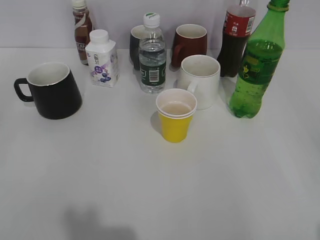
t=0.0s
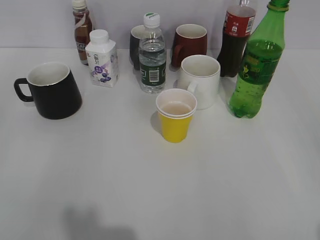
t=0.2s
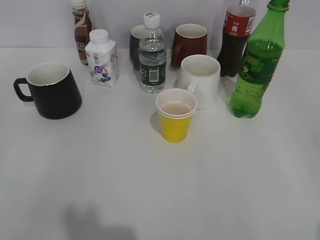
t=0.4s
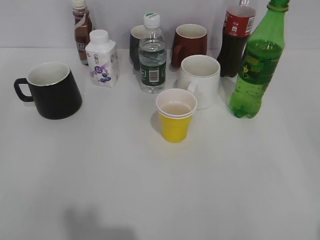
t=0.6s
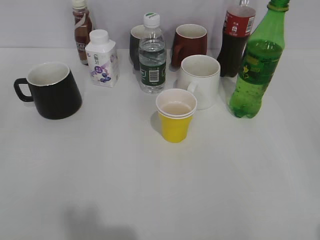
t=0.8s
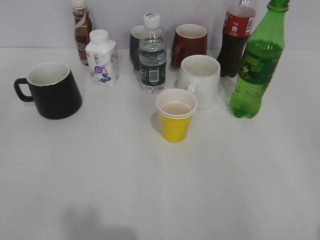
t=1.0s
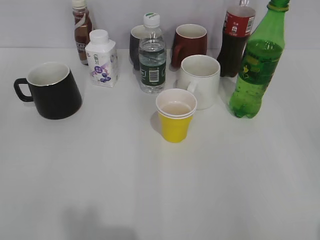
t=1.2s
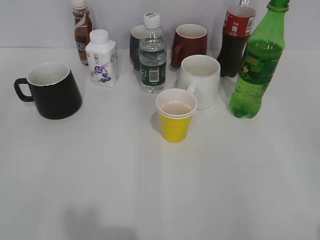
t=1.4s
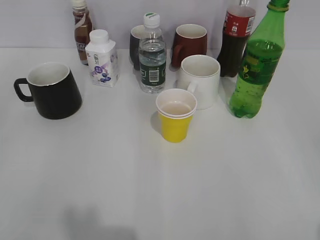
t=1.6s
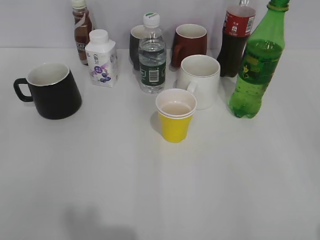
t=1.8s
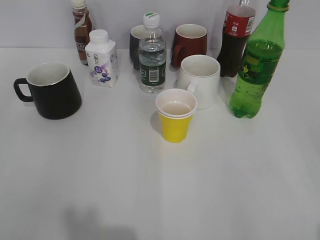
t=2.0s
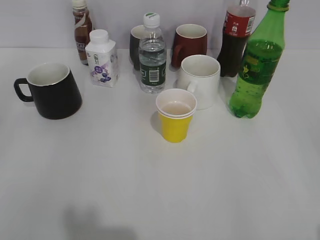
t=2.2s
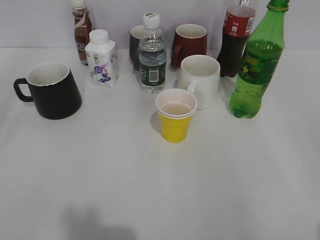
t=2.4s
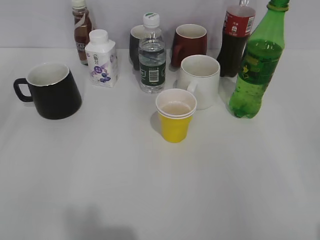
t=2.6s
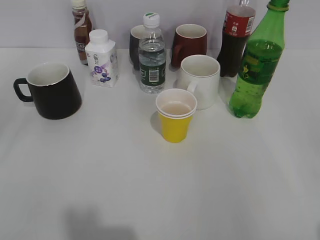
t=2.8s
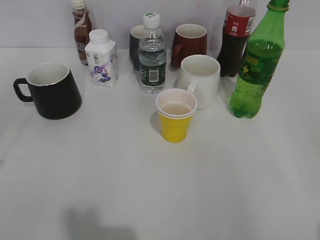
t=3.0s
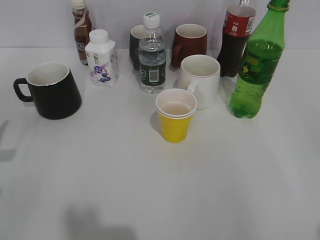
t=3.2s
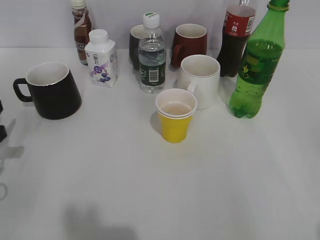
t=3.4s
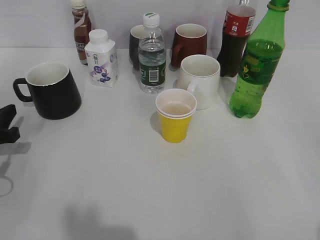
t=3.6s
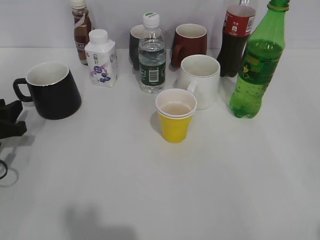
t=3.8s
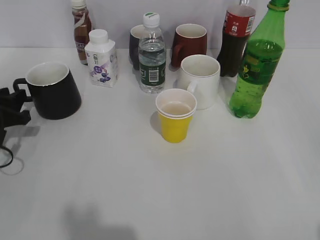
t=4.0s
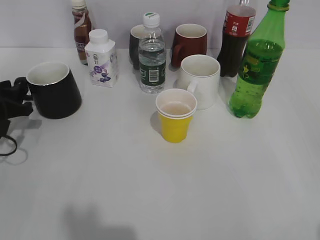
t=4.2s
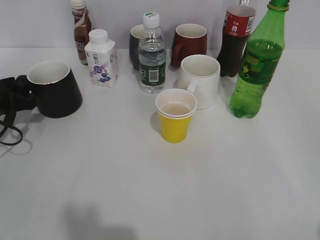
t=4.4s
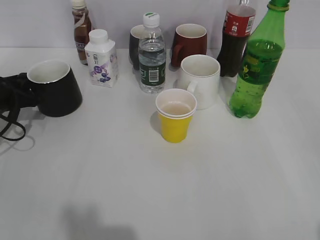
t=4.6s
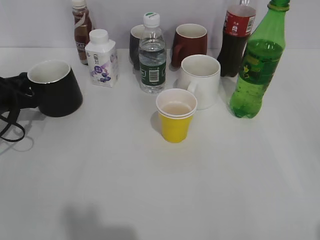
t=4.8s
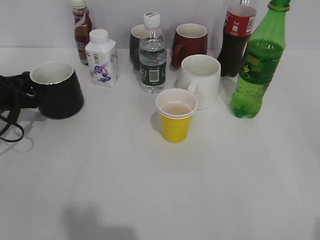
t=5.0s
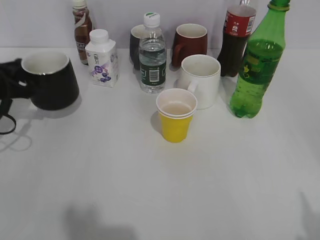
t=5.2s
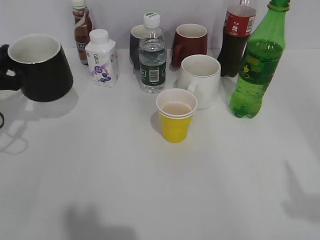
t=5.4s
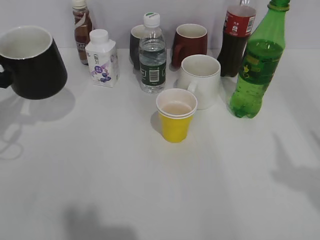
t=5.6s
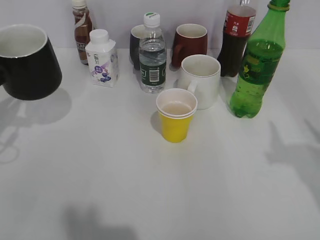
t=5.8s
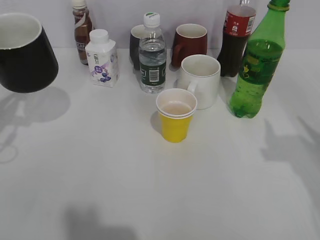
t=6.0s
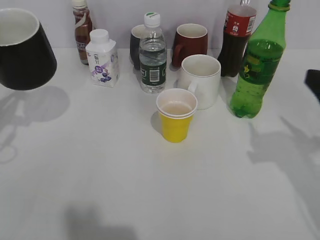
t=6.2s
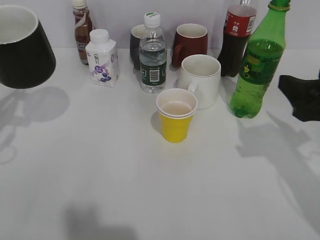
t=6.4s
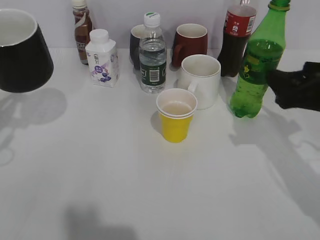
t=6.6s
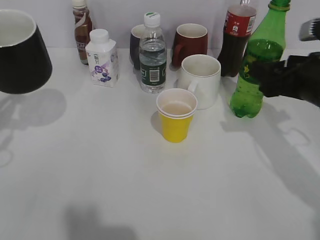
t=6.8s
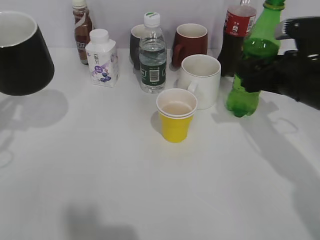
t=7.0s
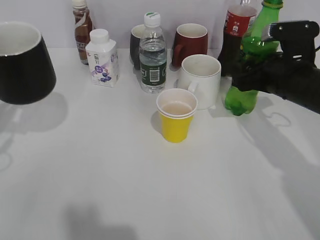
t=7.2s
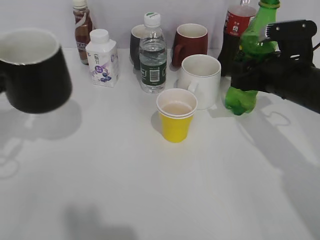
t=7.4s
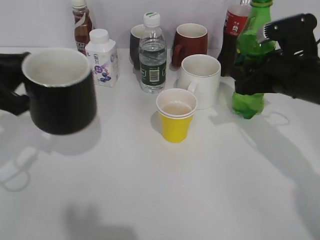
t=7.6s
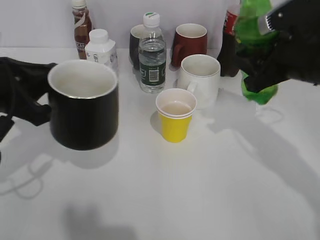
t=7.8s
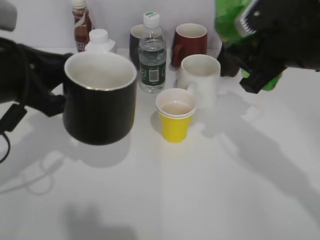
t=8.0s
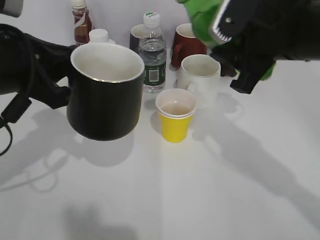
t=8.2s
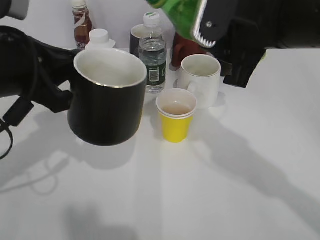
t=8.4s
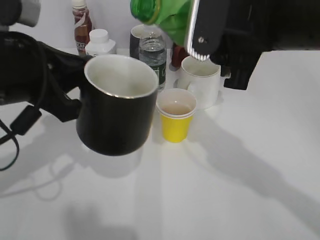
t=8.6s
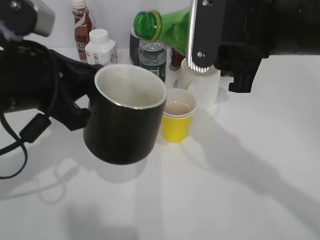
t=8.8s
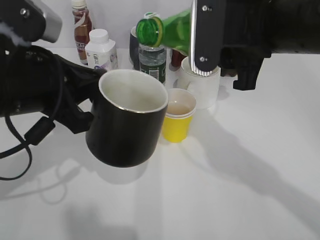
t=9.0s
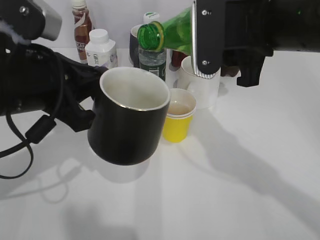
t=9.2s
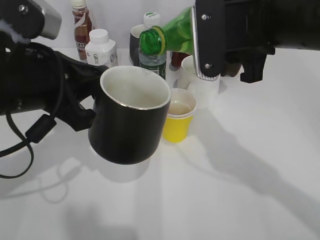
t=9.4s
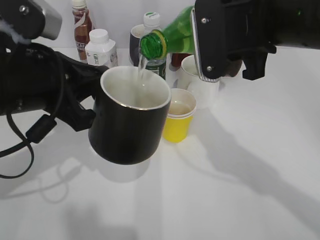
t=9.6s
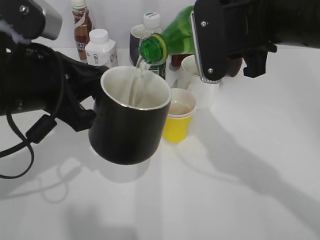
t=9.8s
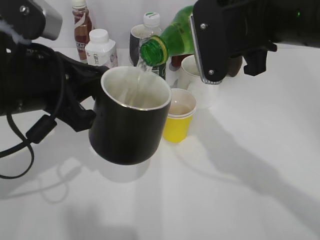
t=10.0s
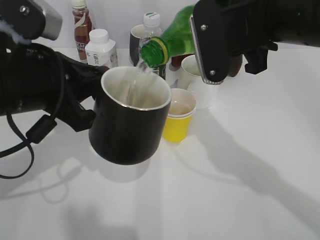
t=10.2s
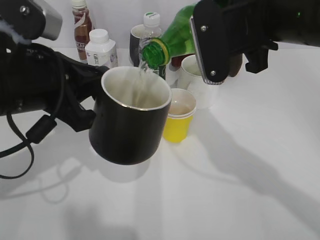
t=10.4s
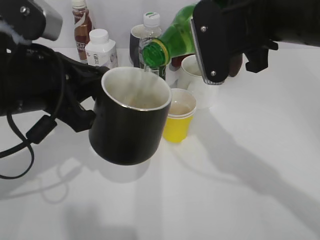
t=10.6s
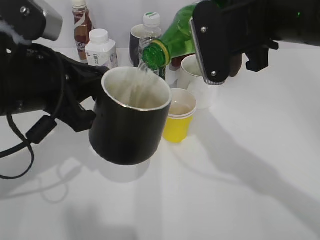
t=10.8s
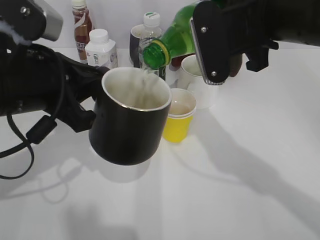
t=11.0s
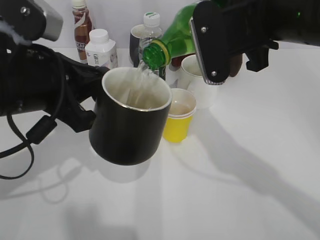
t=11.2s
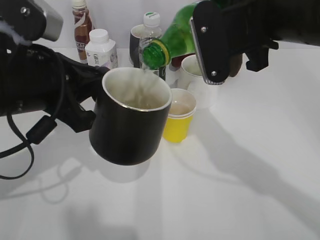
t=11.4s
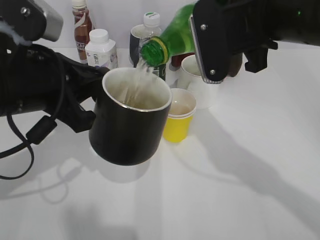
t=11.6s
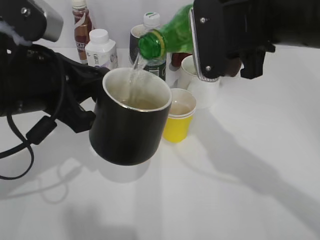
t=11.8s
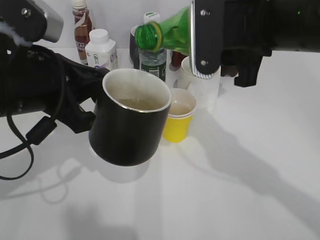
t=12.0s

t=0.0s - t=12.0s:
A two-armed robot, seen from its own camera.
Step, t=2.0s - t=4.6s: Grasp the black cup with left gripper.
Step, t=4.8s - t=7.2s: Grasp the bottle with sprite with right gripper.
t=3.0s - t=4.4s: The left gripper goes roughly 20 cm forward and downward.
t=4.4s - t=6.0s: The left gripper goes roughly 15 cm upward and backward, and closes.
t=6.0s - t=7.6s: The left gripper shifts some 5 cm to the right, while the right gripper travels forward, to the left and downward by about 20 cm, and closes up.
t=7.6s - t=9.0s: The left gripper heads to the right, covering about 10 cm. The right gripper is displaced upward, to the left and backward by approximately 15 cm.
t=10.4s - t=12.0s: The grippers stay close to where they were, moving slightly.

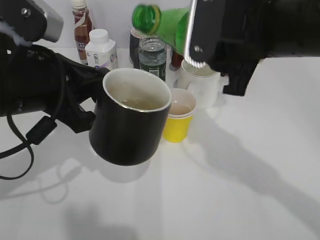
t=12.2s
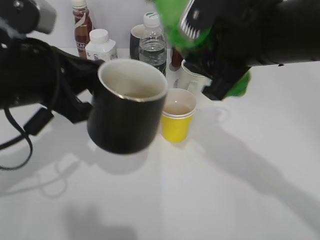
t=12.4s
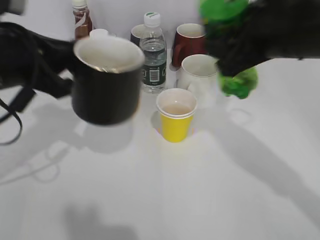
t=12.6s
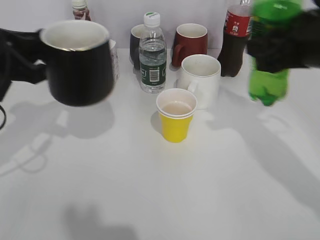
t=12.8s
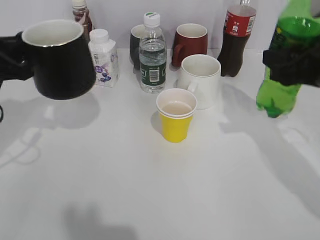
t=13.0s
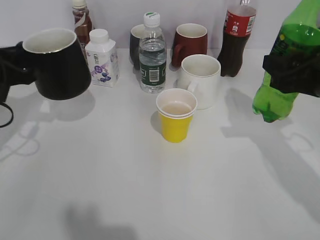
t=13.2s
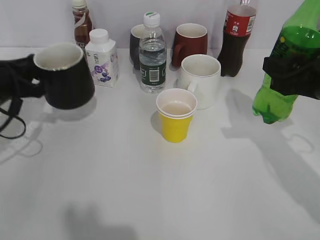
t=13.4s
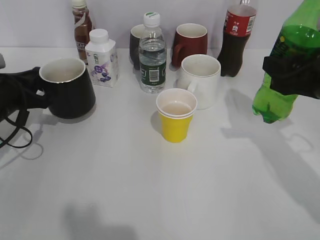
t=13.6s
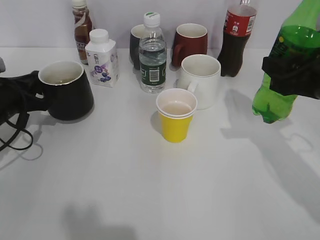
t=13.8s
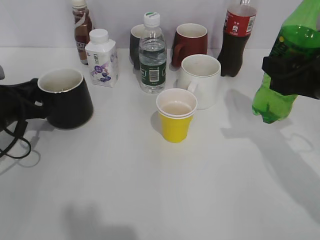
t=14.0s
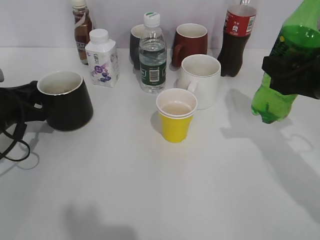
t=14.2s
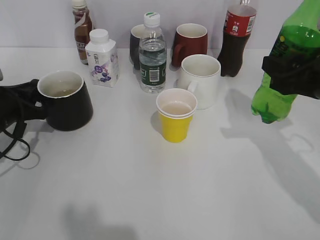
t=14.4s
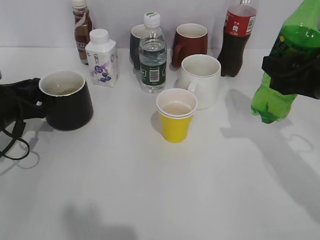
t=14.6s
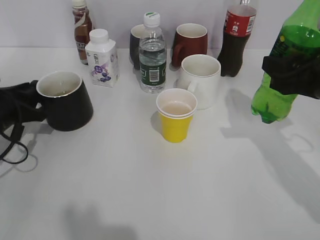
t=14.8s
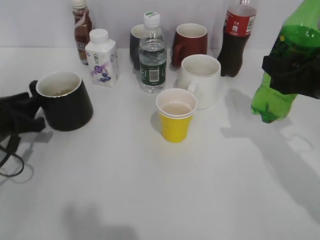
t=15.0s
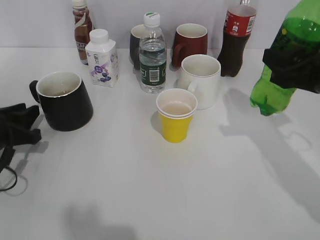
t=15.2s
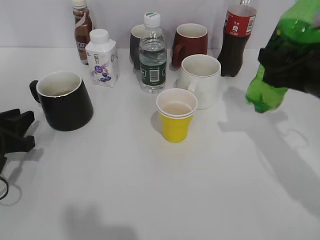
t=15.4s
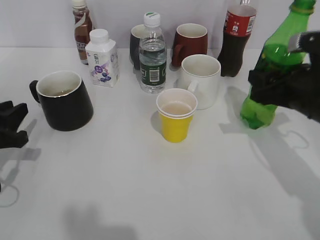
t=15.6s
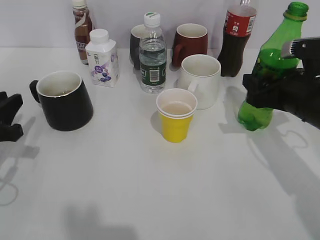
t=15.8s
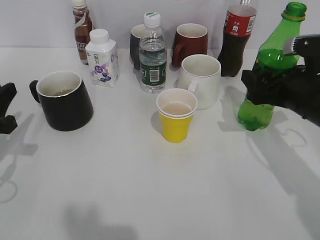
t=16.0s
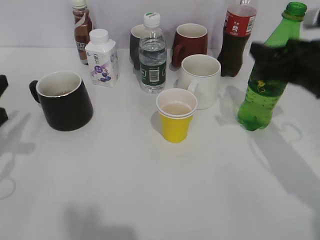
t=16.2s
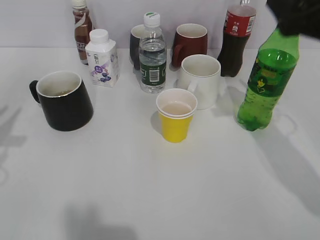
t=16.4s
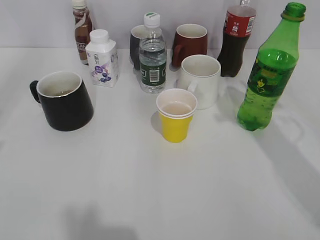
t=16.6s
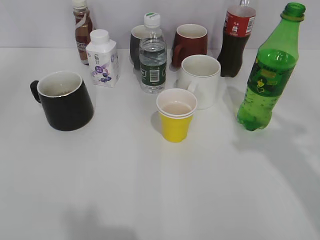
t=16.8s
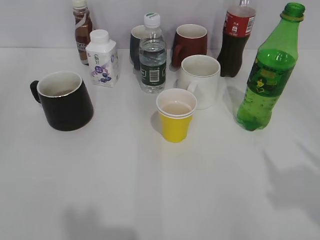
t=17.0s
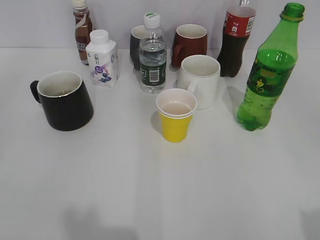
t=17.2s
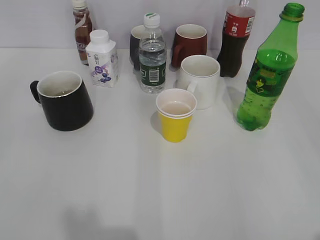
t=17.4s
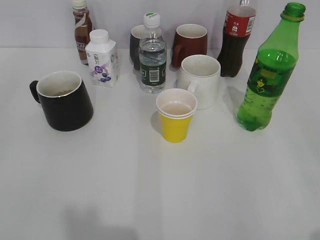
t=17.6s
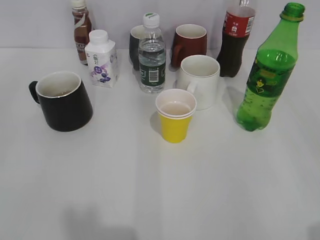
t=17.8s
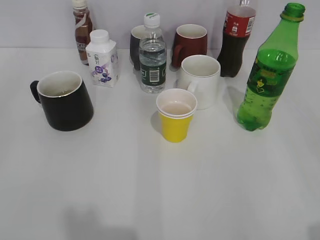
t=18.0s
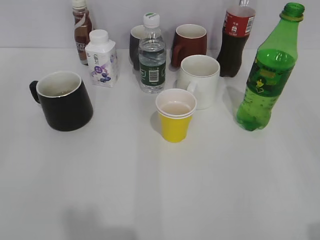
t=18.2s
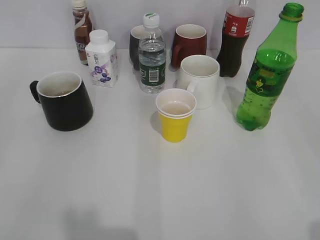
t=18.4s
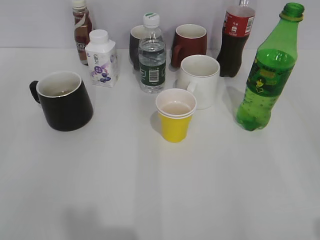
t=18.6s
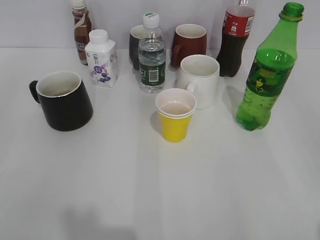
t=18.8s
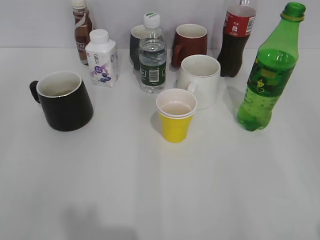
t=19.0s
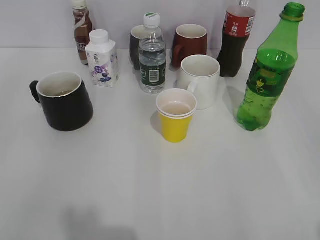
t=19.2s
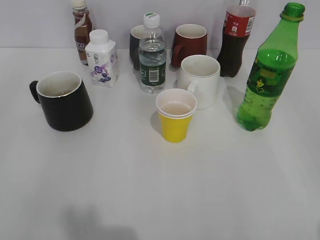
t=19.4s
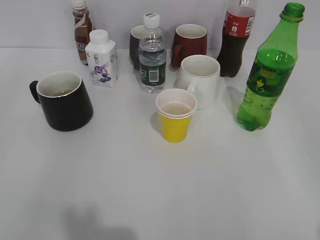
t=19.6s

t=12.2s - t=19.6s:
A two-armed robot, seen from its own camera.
Step, t=12.2s - t=14.8s: Place the black cup on the table with left gripper.
Step, t=15.2s - t=16.2s: Place the sprite bottle on the table with right gripper.
t=12.2s - t=13.6s: The left gripper heads downward, to the left and forward, covering roughly 20 cm; the right gripper shifts some 15 cm to the right and downward.
t=13.6s - t=15.2s: The left gripper is displaced backward by some 5 cm, and opens its fingers.
t=15.2s - t=16.6s: The left gripper is displaced upward and backward by some 25 cm; the right gripper moves upward, roughly 10 cm, and opens up.
t=16.6s - t=18.2s: The right gripper moves backward, roughly 20 cm.

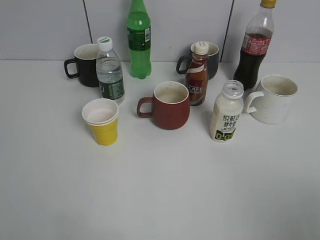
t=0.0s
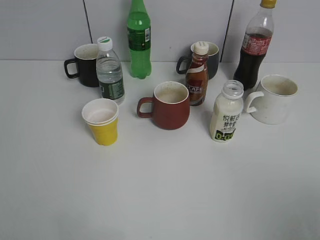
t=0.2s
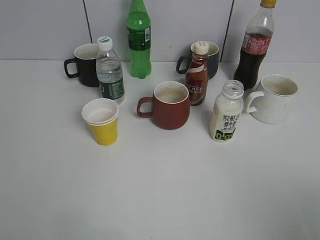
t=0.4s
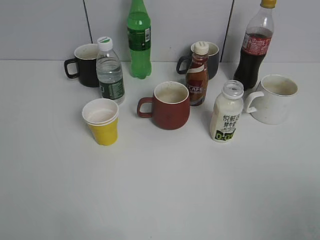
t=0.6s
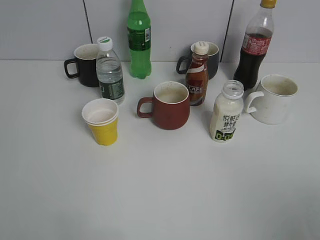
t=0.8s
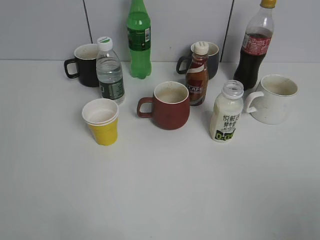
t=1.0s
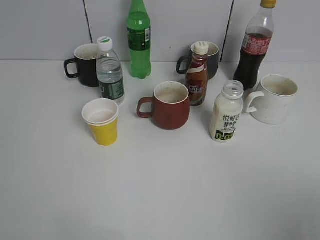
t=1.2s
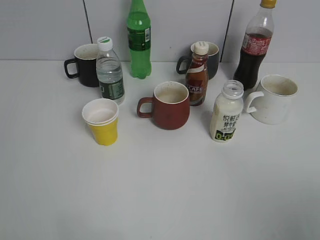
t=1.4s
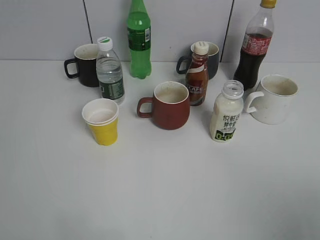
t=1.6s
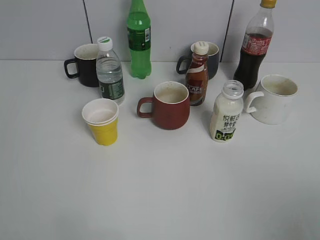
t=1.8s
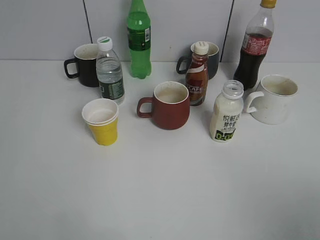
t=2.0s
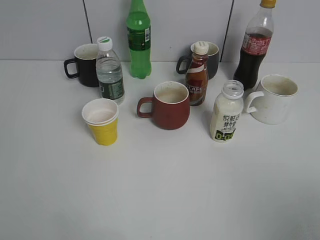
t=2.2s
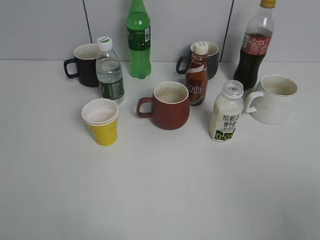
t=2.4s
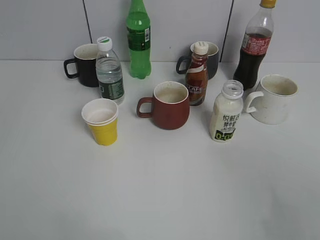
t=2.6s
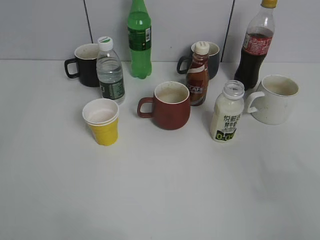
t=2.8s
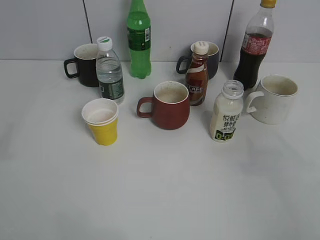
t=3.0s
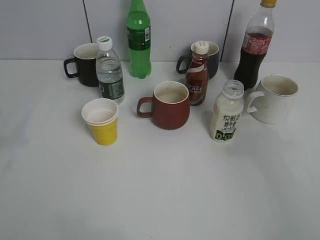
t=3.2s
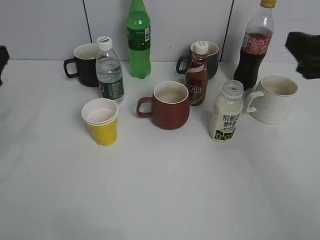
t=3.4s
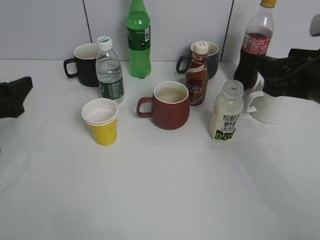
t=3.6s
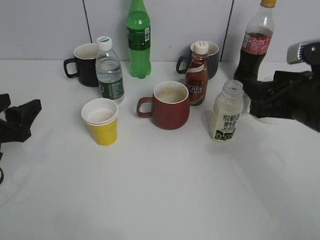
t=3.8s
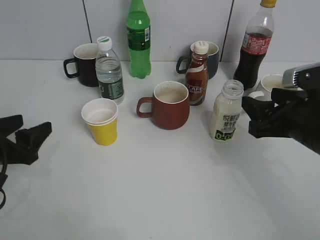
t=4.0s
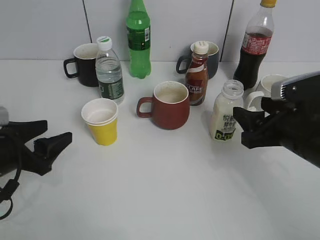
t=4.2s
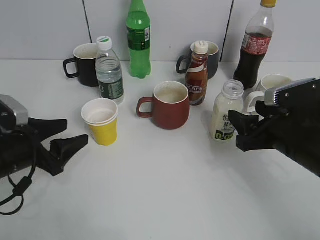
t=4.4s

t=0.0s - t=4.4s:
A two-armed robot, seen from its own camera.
t=1.4s - t=3.0s: The right gripper shifts some 15 cm forward.
t=3.0s - t=4.4s: The left gripper heads downward and forward, covering some 25 cm; the right gripper moves downward, forward and to the left, approximately 20 cm.
